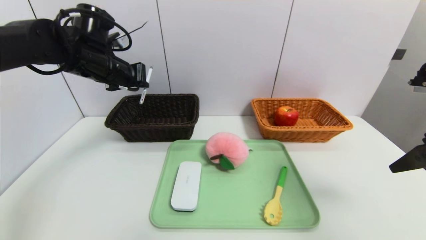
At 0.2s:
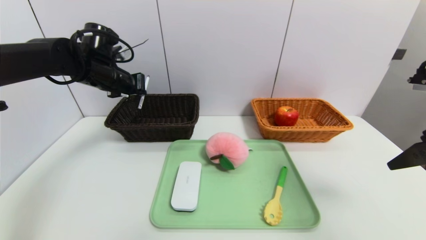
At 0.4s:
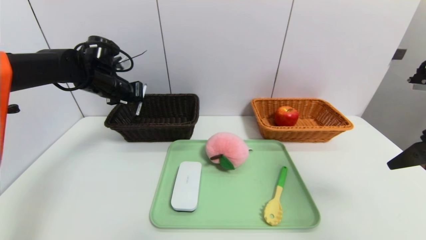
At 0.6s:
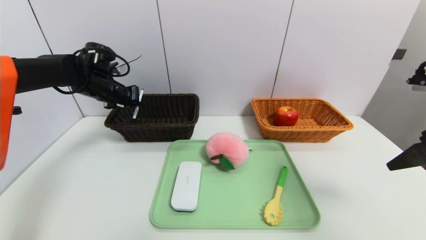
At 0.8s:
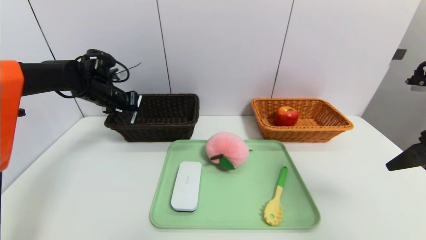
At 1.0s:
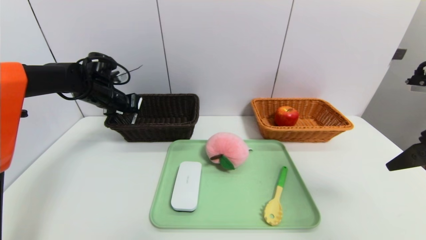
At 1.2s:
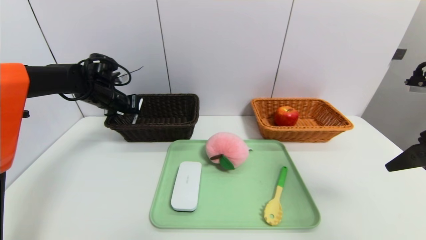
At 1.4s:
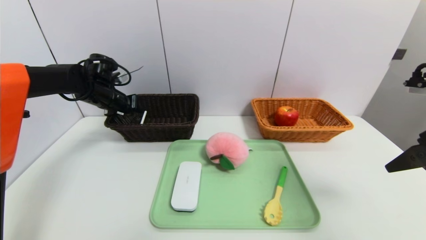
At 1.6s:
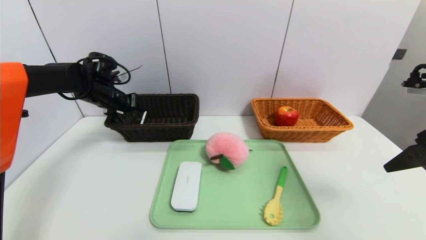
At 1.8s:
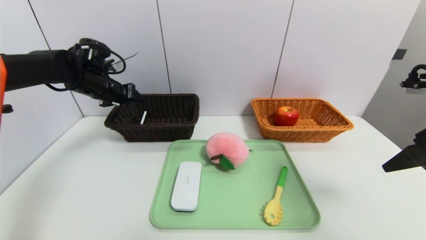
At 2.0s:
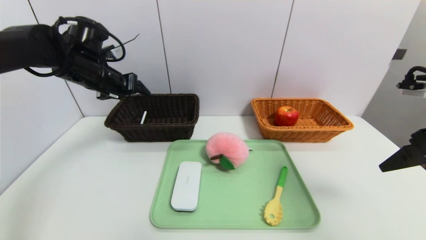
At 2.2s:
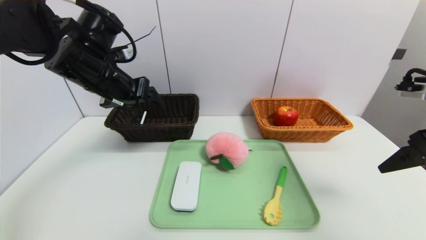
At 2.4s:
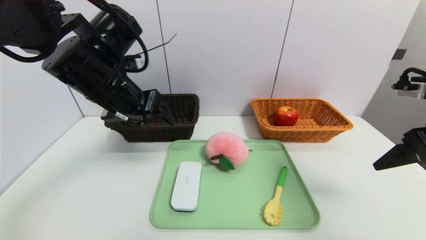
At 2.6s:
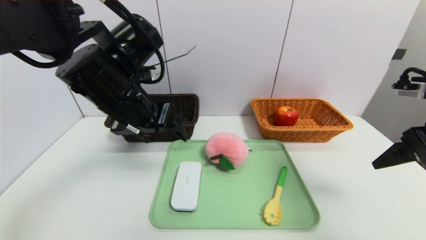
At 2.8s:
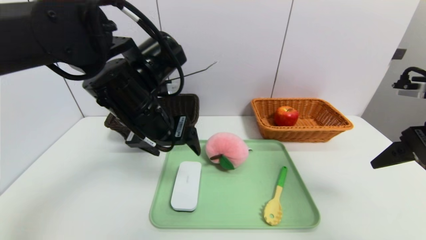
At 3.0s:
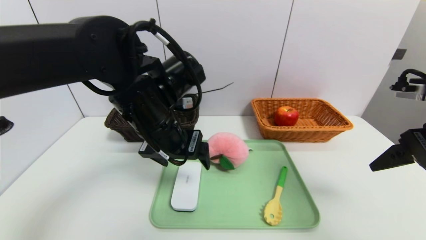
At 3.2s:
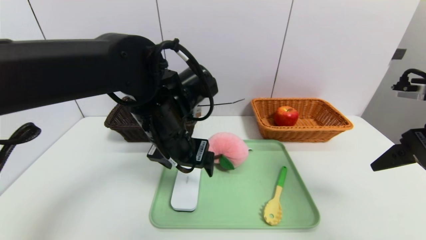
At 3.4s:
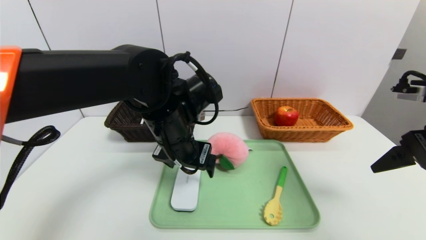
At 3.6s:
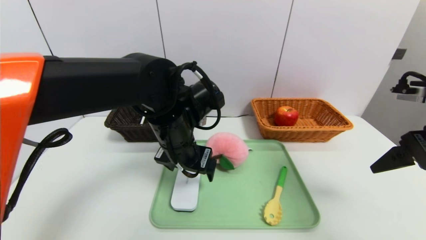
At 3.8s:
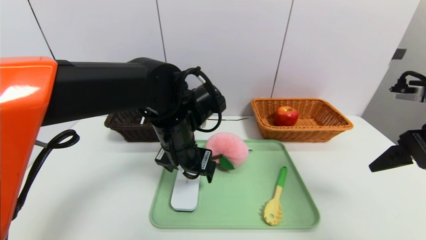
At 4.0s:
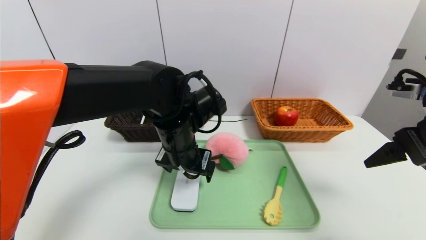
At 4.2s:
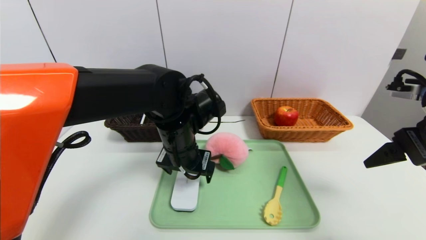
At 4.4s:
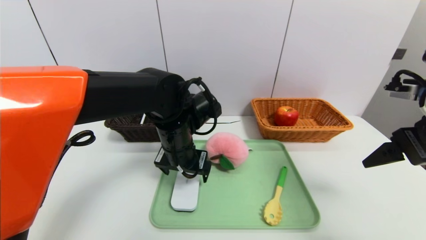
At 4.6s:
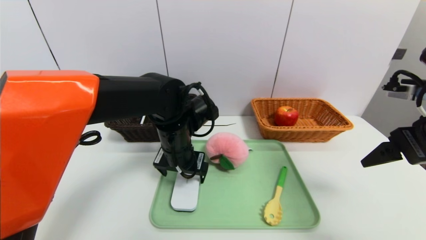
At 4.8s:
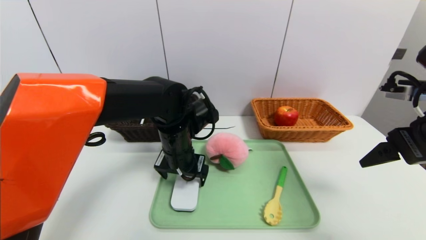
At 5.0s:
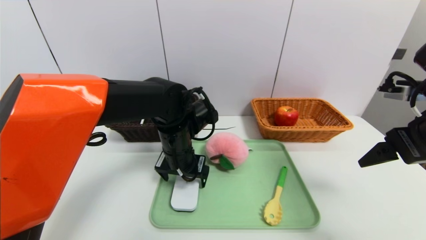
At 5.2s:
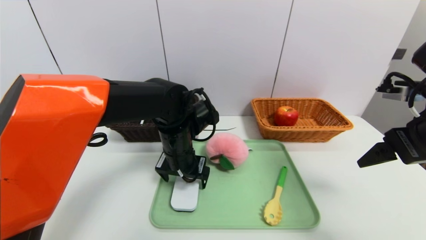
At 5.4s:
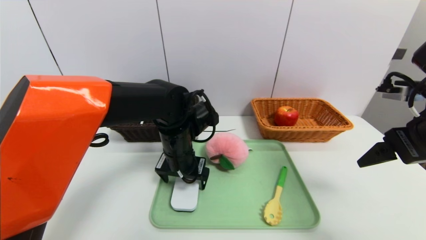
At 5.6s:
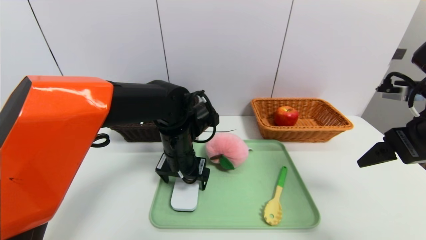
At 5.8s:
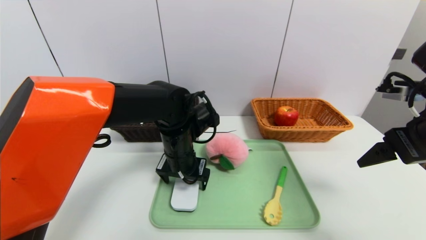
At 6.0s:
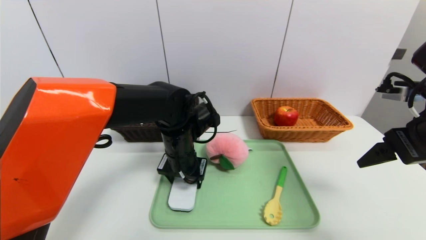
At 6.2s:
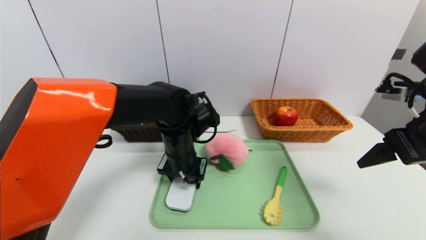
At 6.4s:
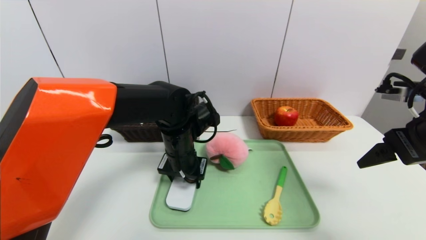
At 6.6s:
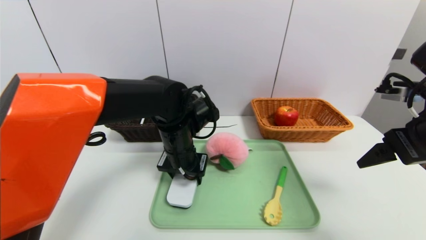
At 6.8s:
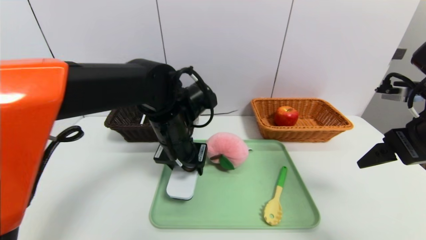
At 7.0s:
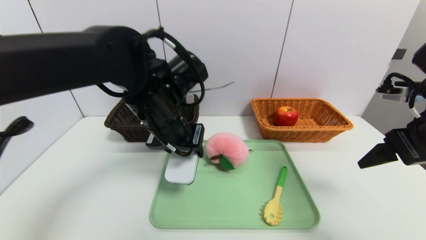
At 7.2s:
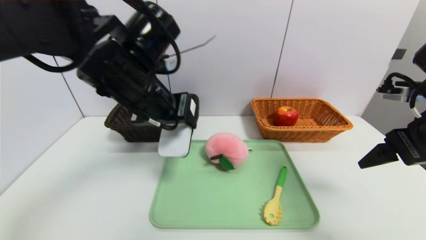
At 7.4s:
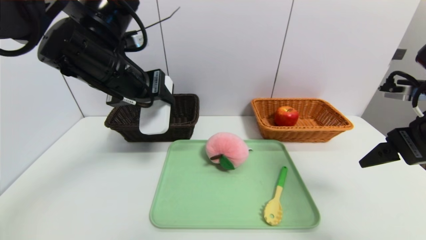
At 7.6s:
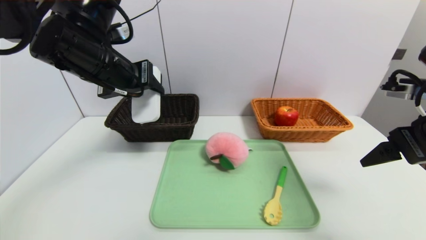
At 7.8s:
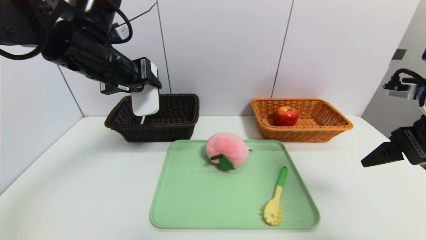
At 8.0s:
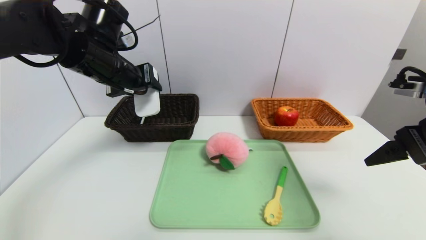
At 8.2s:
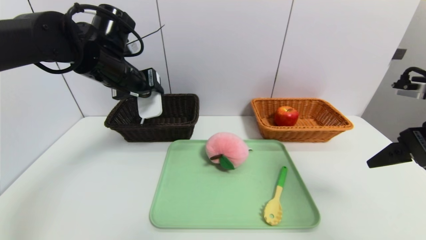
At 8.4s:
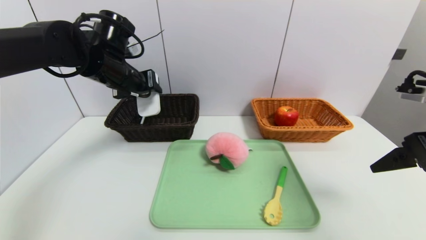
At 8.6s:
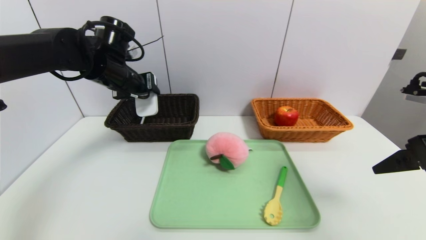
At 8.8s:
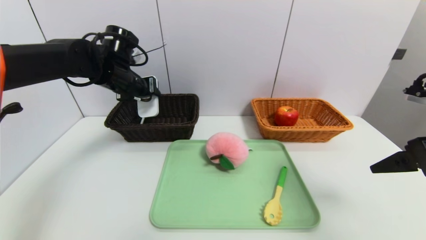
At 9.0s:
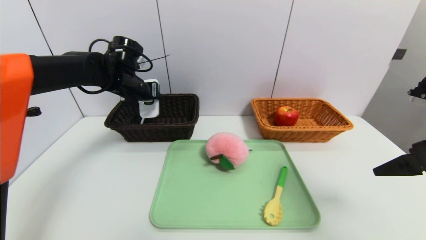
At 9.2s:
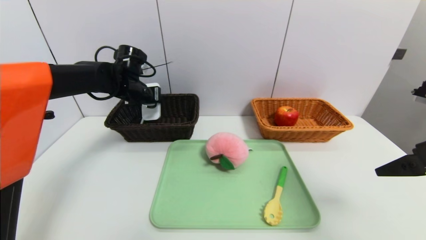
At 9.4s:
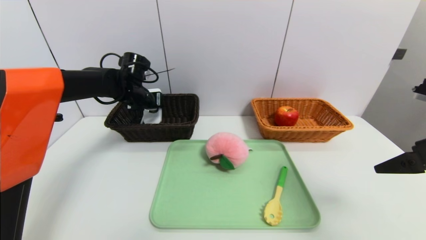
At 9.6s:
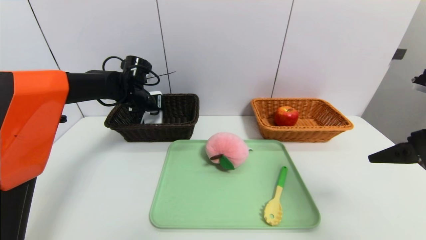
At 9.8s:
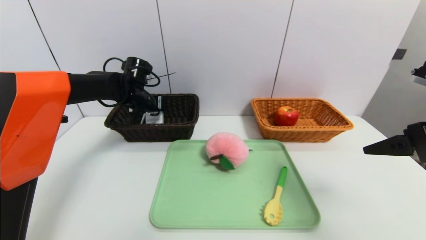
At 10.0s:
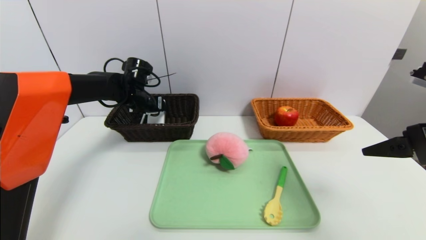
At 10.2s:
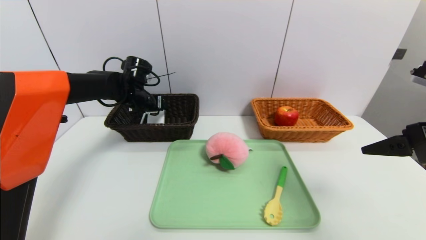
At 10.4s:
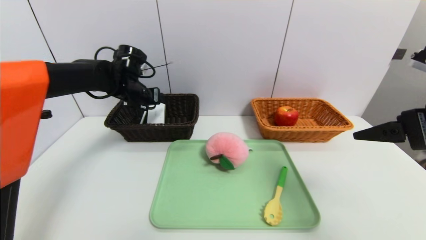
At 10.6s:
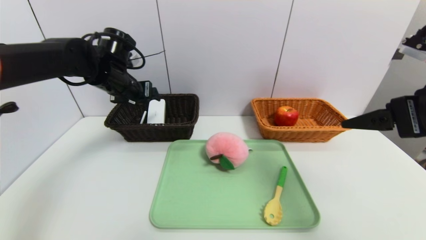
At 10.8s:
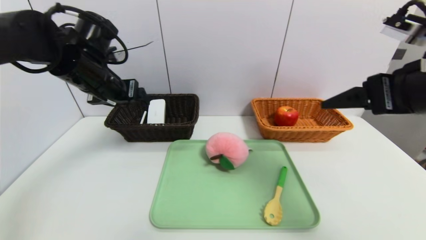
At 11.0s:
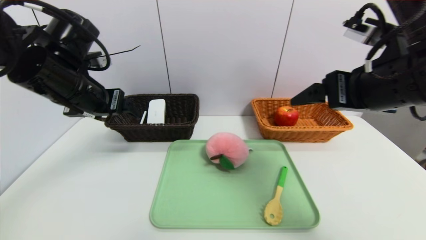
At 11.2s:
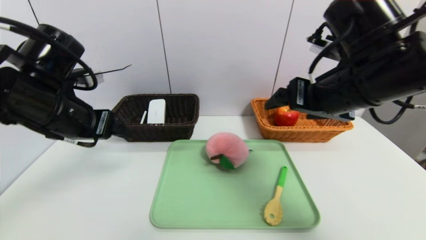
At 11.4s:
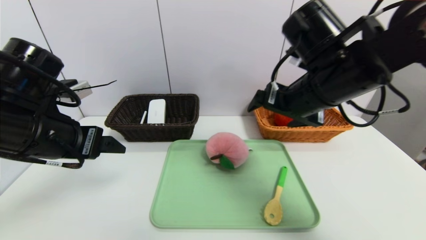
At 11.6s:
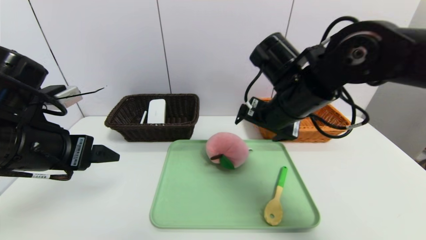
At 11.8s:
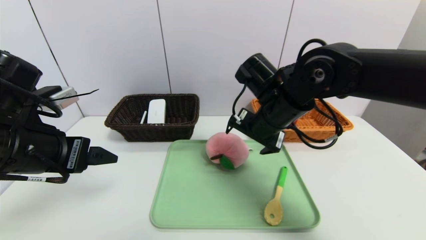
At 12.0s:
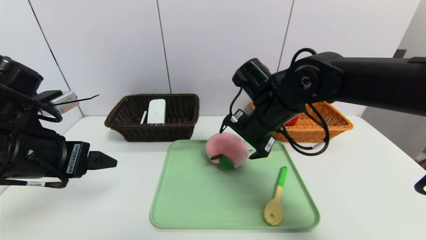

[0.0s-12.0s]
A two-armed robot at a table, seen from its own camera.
Task of the whole recording: place the food in the right basket with the right gripper, and place the non food items in the left basket with the left gripper.
Step, 0.0s to 2.0s: Grasp the ballpoint pen and put it in the left basket.
Step, 2.2s to 10.0s: Grasp the white eraser and put it in the left basket.
0.0s to 1.6s: The left gripper shifts roughly 10 cm downward, forward and to the left, and opens.
1.6s to 3.0s: The left gripper moves to the right and backward, approximately 25 cm, and opens up.
3.0s to 4.4s: The left gripper shifts roughly 5 cm downward.
4.4s to 6.0s: The grippers make only small movements.
6.0s to 7.6s: The left gripper heads upward and to the left, covering roughly 20 cm.
7.6s to 9.0s: The left gripper travels forward and downward by some 15 cm.
9.0s to 10.4s: The grippers make only small movements.
10.4s to 12.0s: The left gripper heads backward, covering roughly 25 cm; the right gripper shifts about 25 cm to the left, forward and downward.

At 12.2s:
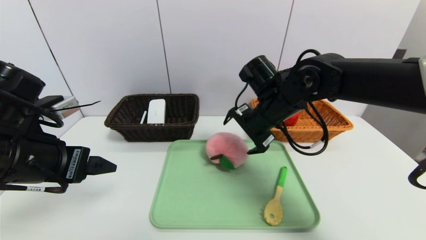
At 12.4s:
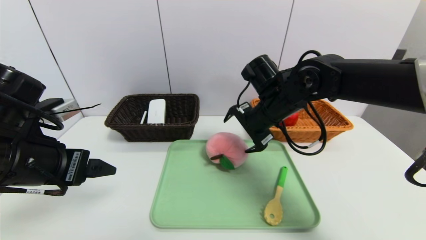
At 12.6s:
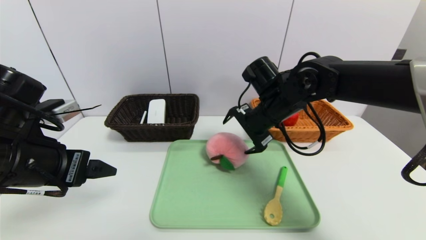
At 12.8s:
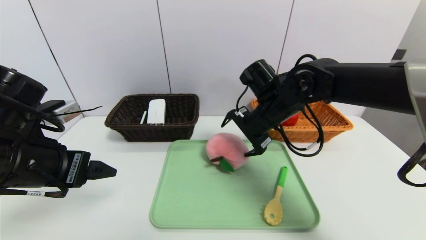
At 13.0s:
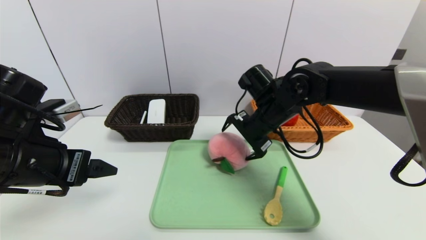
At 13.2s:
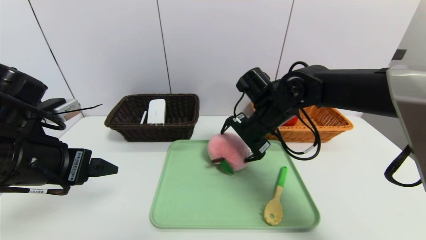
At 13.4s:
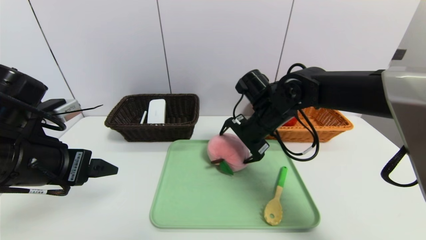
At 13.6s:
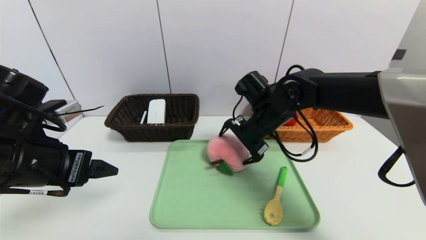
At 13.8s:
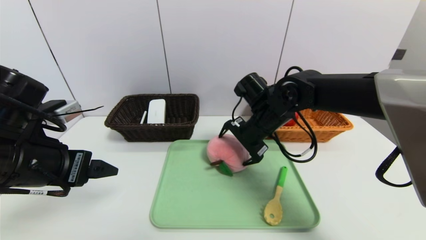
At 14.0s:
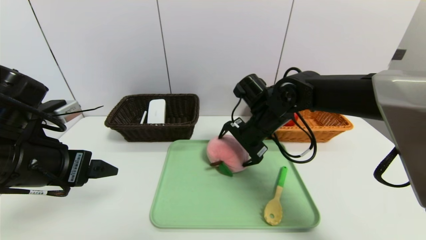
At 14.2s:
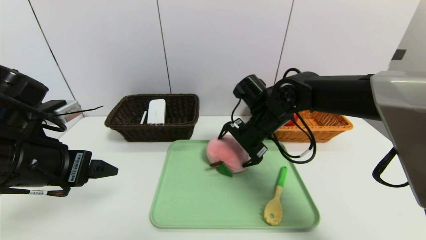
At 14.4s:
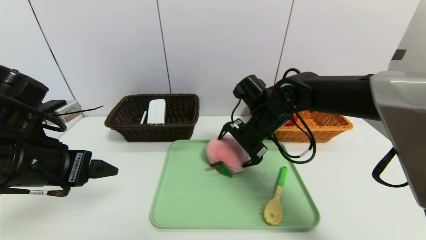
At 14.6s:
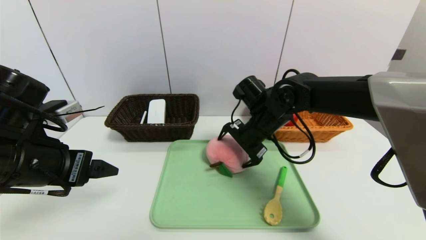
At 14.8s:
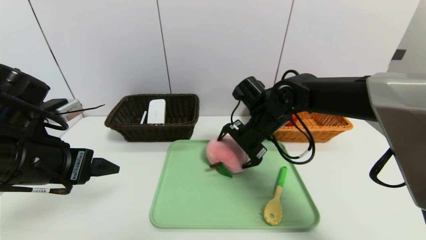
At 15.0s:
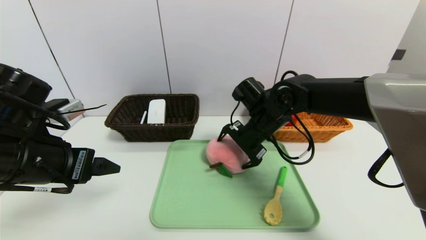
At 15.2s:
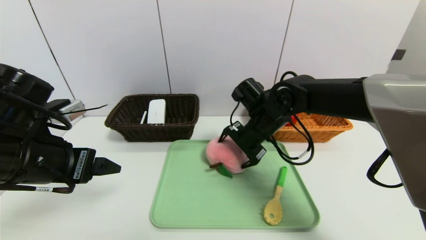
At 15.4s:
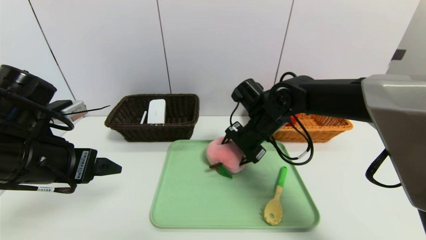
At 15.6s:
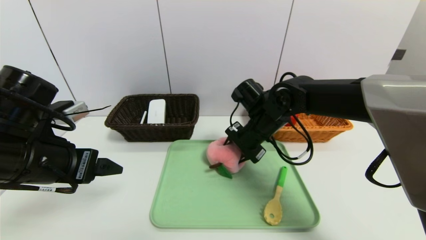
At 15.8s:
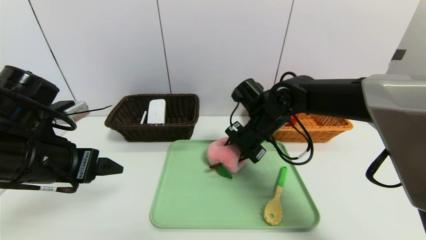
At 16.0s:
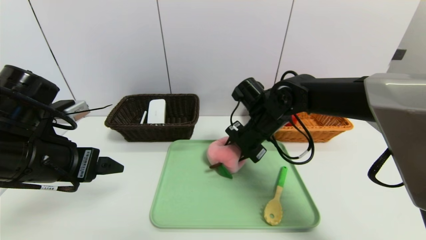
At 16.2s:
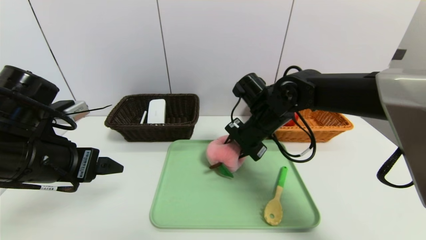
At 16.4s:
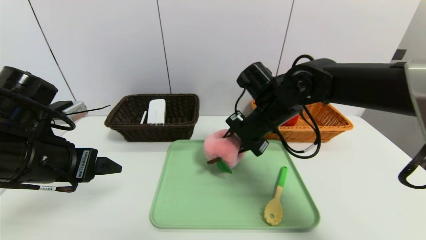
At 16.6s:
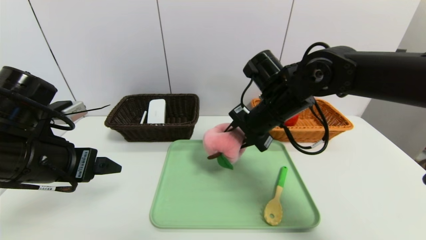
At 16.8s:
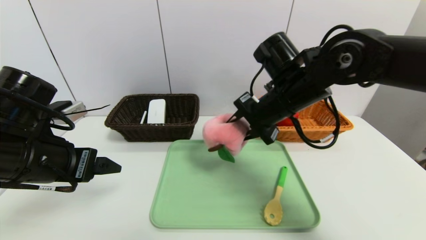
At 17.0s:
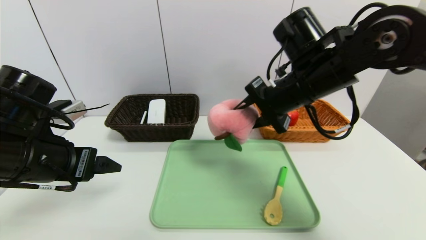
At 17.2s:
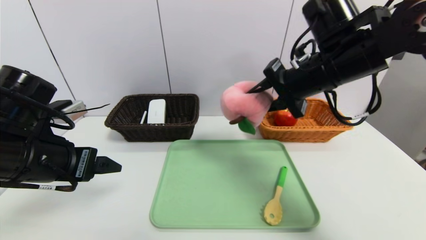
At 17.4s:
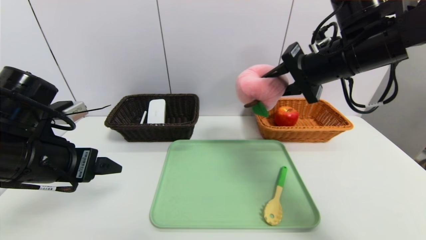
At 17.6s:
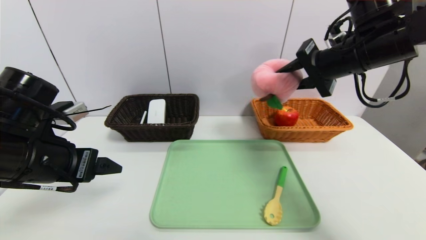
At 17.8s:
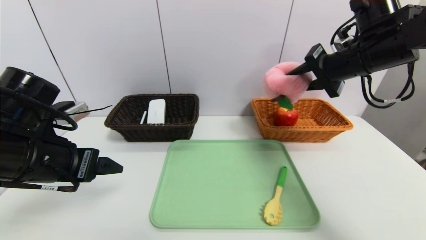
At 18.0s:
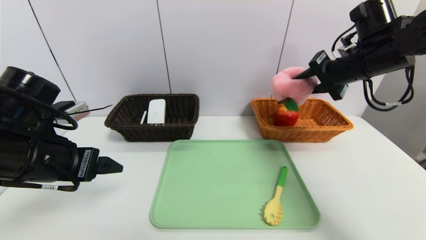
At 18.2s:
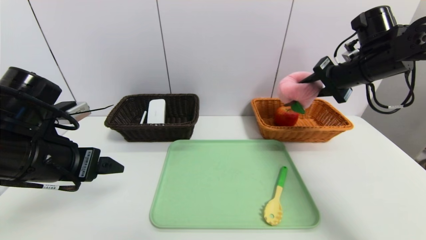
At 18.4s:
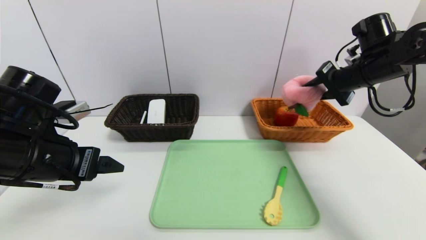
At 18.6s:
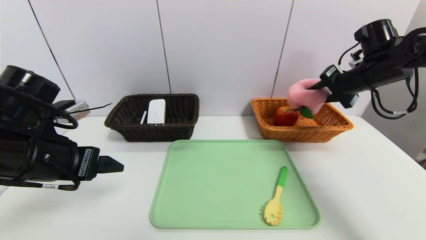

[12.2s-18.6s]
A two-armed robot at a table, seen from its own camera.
Task of the whole recording: place the food in the right basket with the right gripper, and place the non food items in the left basket with the left gripper.
12.2s to 13.8s: The grippers make only small movements.
13.8s to 15.4s: The right gripper closes its fingers.
15.4s to 17.0s: The right gripper shifts some 15 cm upward and backward, and closes up.
17.0s to 18.6s: The right gripper travels to the right and forward by roughly 20 cm.
